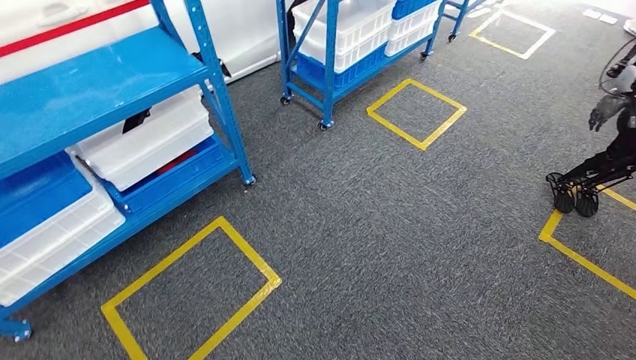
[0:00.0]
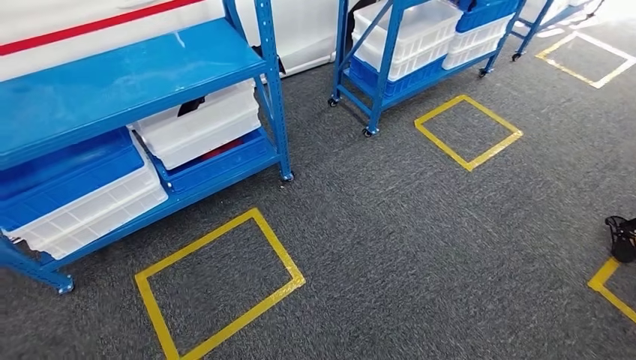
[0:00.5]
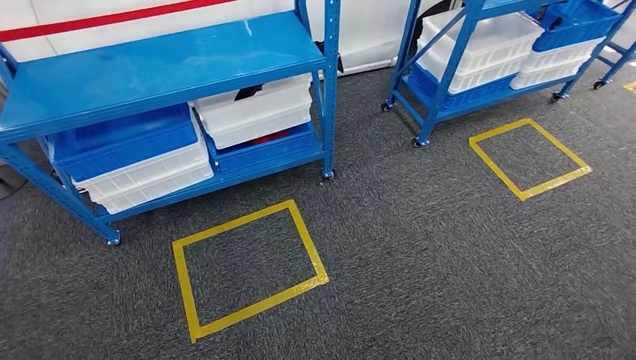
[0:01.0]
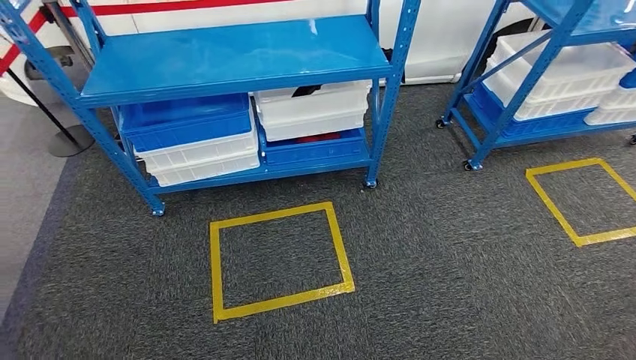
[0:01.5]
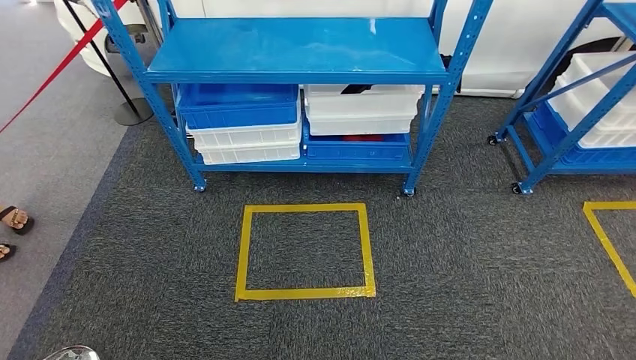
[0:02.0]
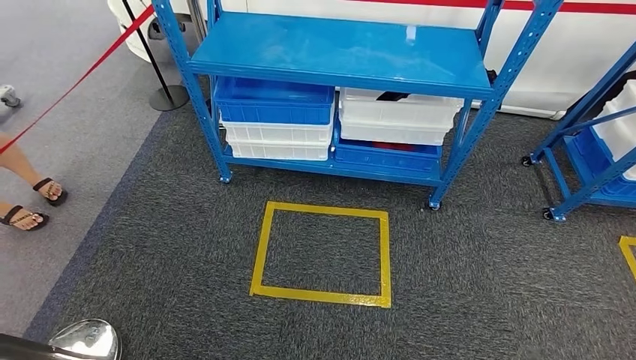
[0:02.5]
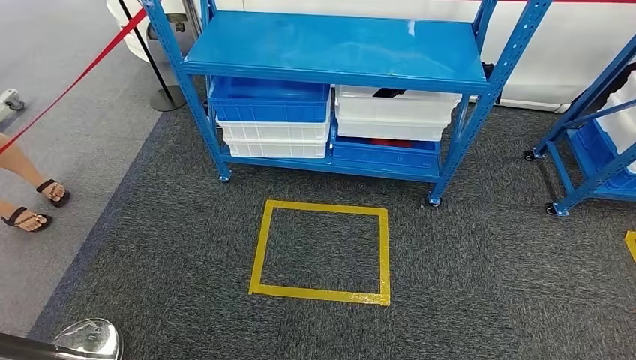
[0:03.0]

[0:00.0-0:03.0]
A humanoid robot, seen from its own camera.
Step, 0:00.0 to 0:02.5: Return to the initial position at the shelf.
